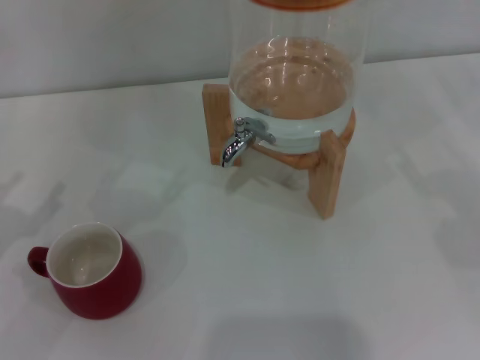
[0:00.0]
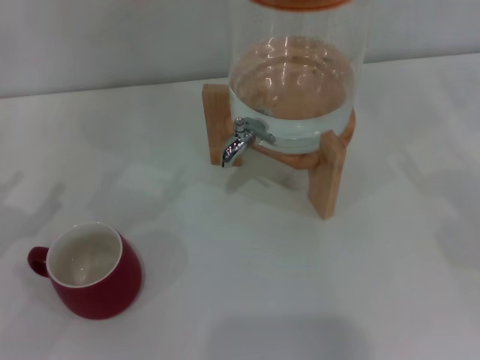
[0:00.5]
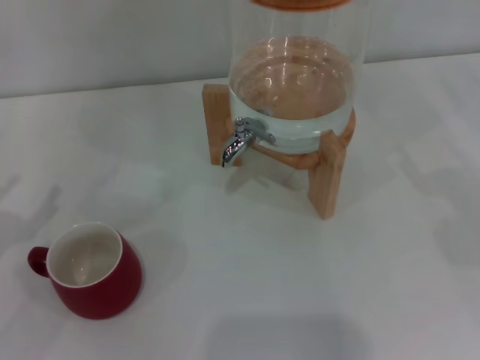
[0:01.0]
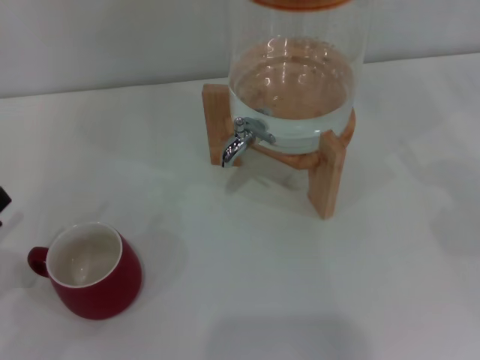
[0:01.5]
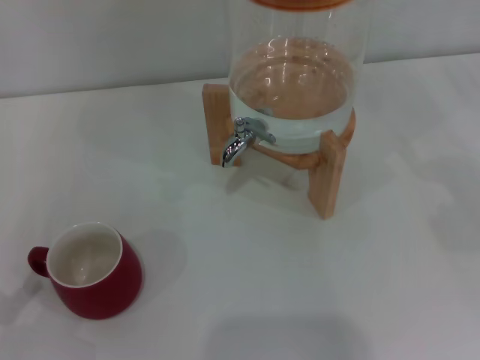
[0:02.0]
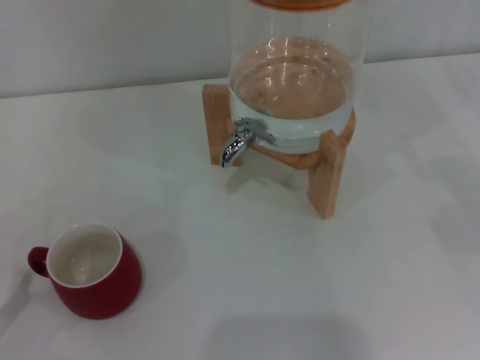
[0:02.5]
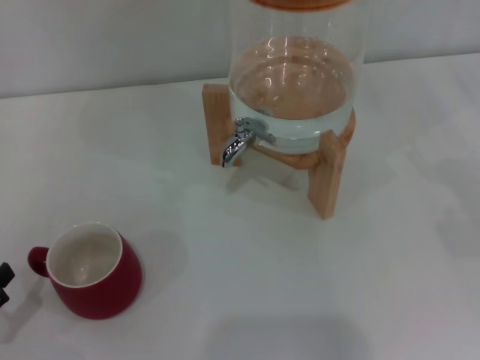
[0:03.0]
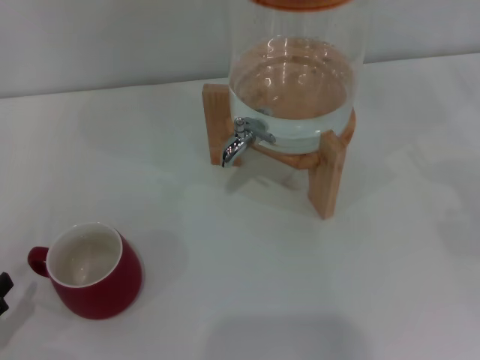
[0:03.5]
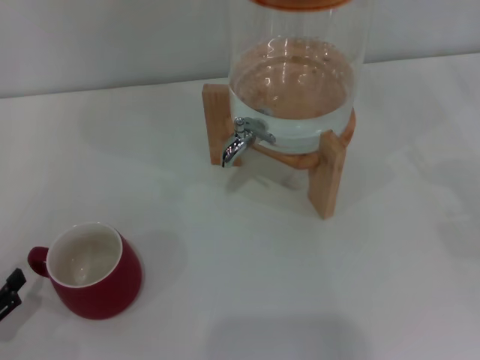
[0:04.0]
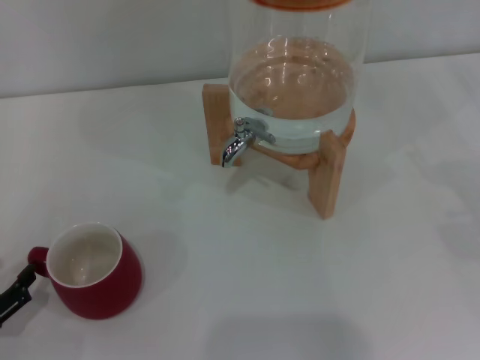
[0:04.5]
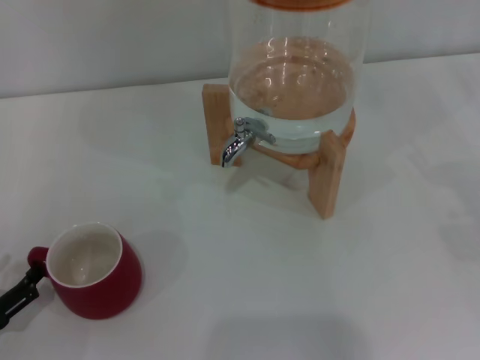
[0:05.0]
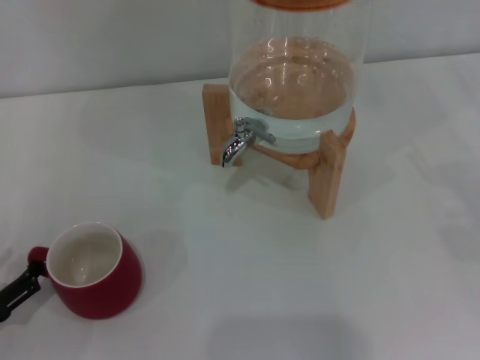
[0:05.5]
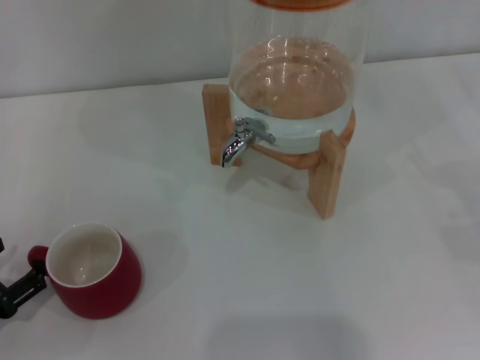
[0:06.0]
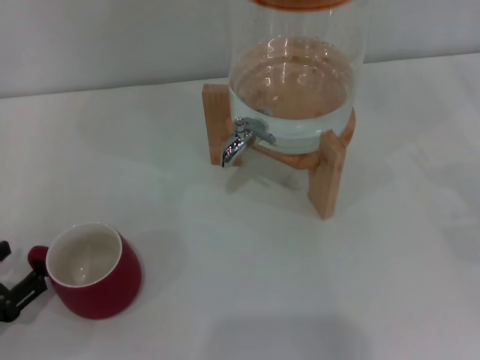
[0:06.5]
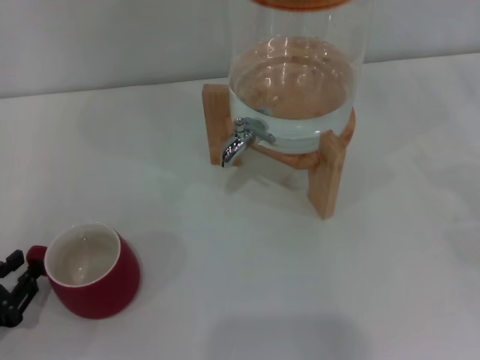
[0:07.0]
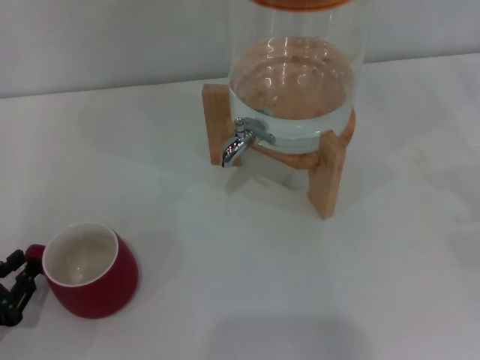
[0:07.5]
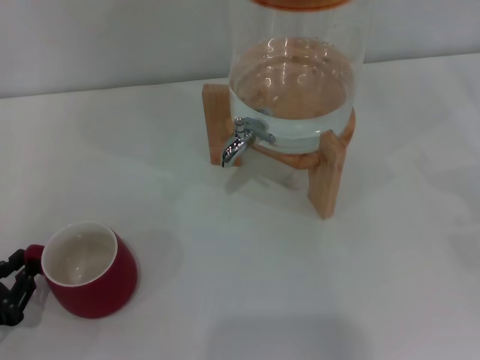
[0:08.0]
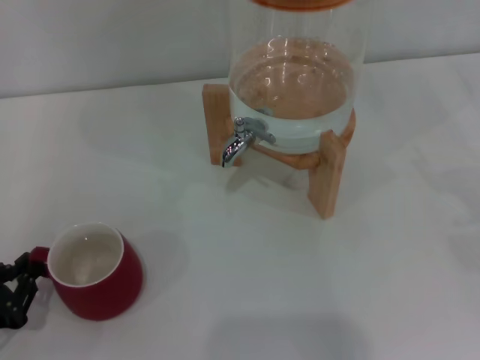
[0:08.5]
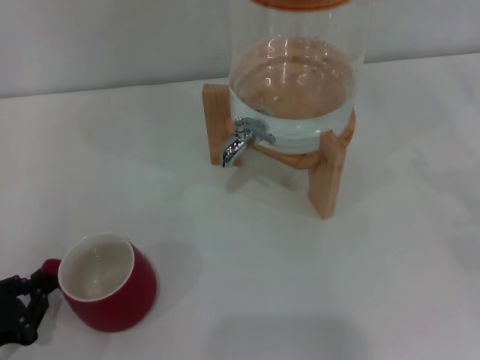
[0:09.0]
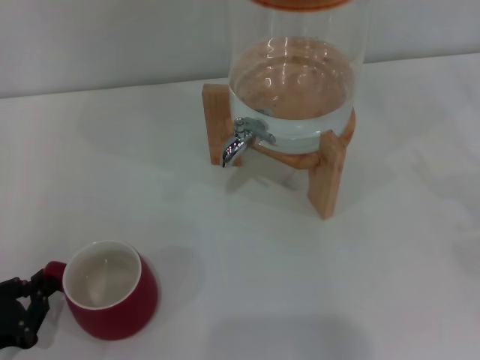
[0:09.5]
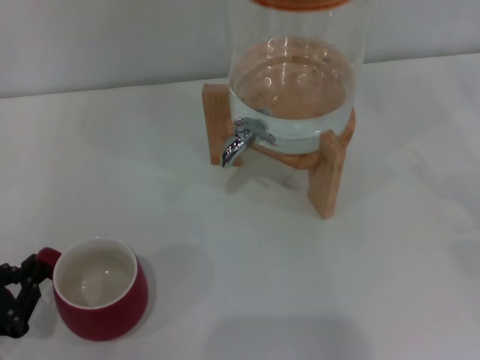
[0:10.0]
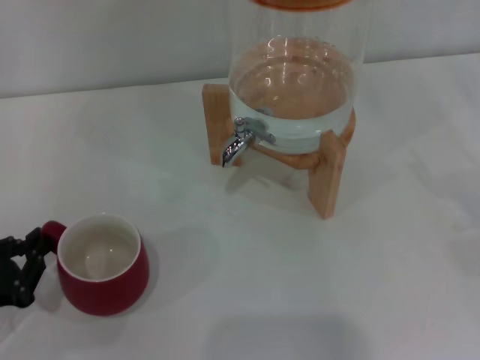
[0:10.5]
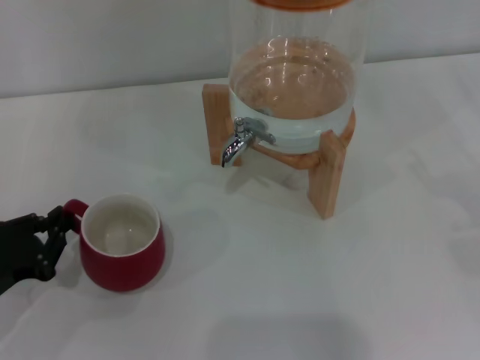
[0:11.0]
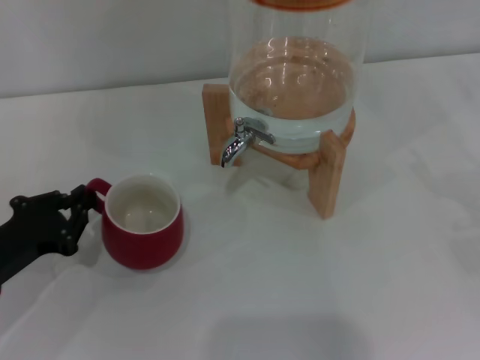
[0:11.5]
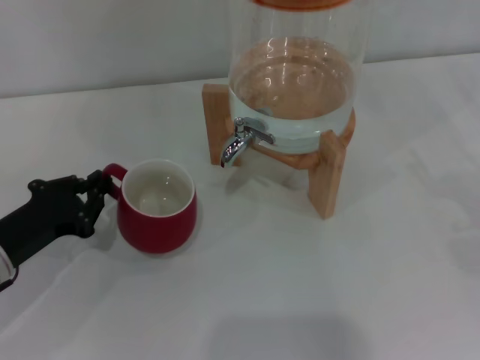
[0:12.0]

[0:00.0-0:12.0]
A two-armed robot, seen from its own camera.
Task of the whole recording: the left gripper pick up the red cup and place it horizontally under the faucet, the right gripper turn on the faucet to fill the cup, and then turn off the faucet.
0:02.0 to 0:04.0: The left gripper is displaced downward by roughly 5 cm.
0:06.0 to 0:08.0: The left gripper closes.
0:08.0 to 0:10.0: The grippers stay close to where they were, moving slightly.
0:10.0 to 0:12.0: The left gripper is displaced forward and to the right by roughly 10 cm.

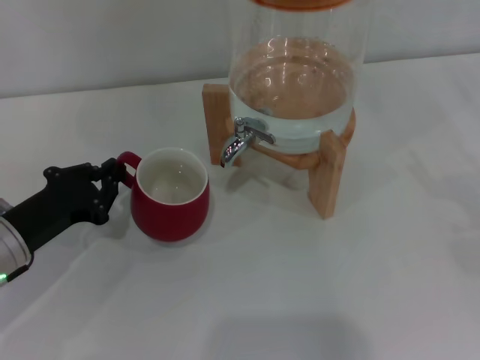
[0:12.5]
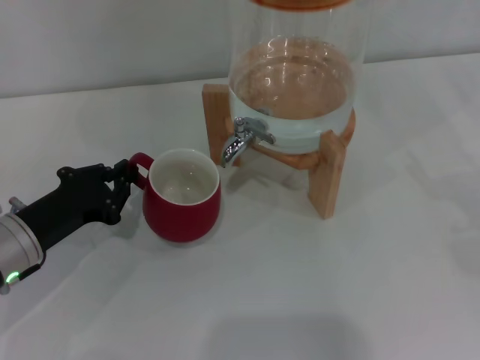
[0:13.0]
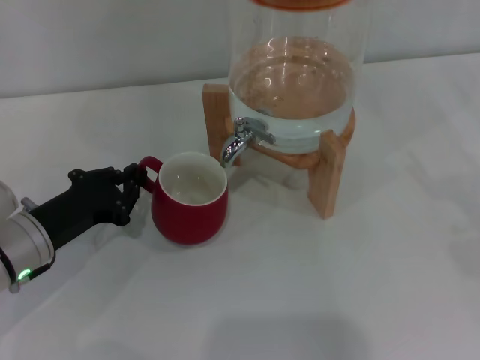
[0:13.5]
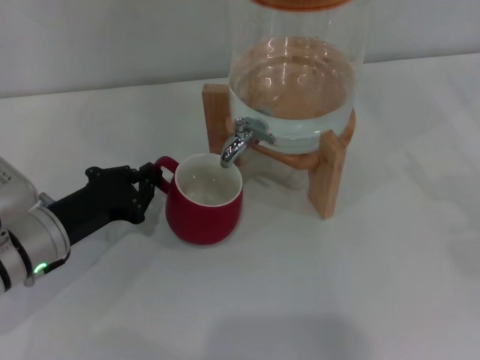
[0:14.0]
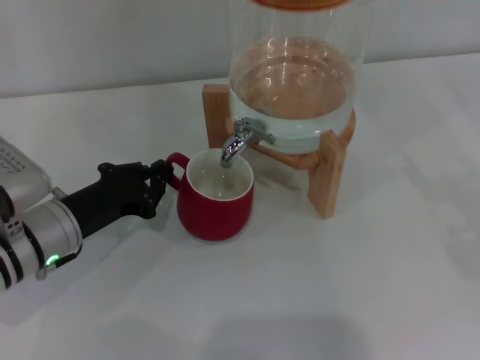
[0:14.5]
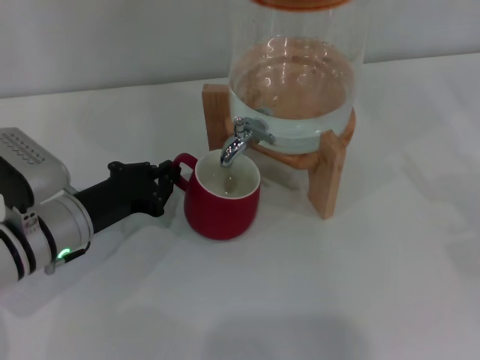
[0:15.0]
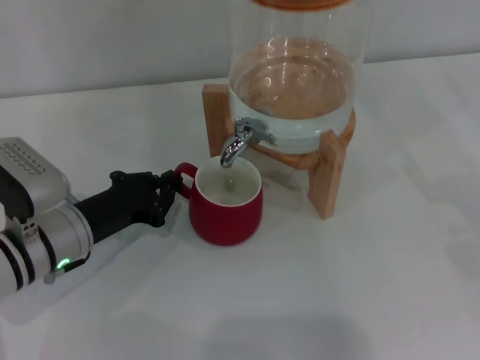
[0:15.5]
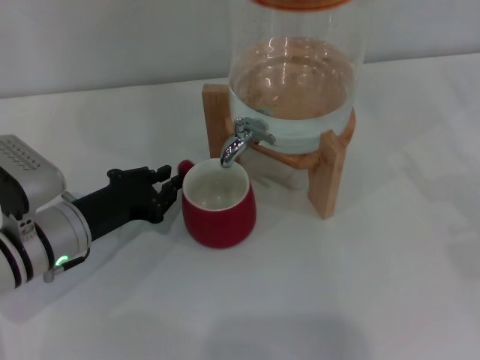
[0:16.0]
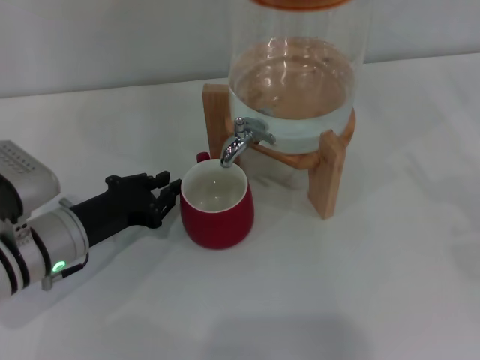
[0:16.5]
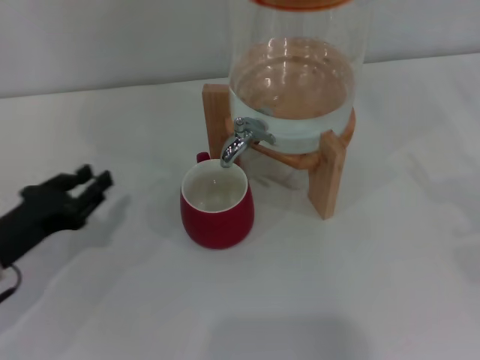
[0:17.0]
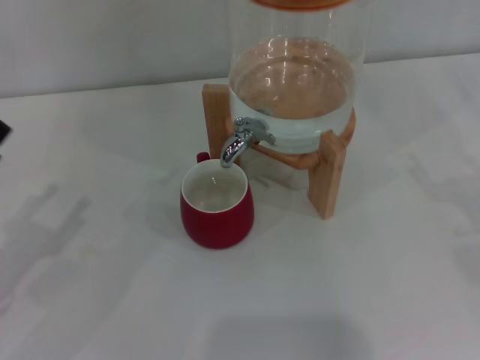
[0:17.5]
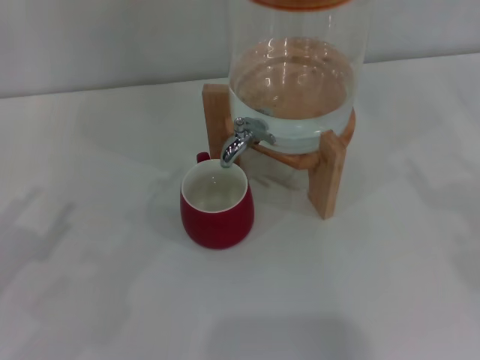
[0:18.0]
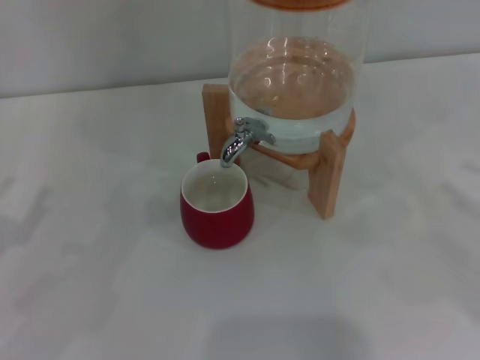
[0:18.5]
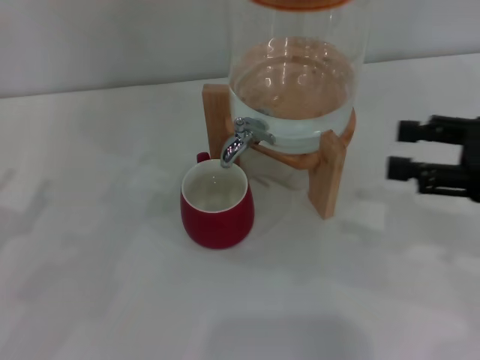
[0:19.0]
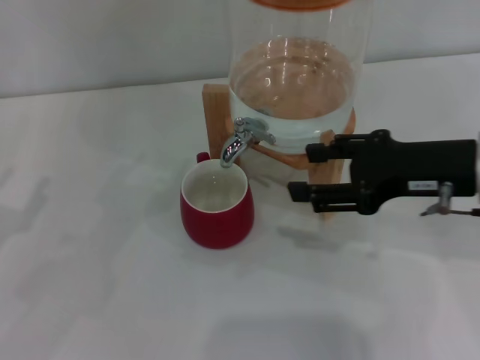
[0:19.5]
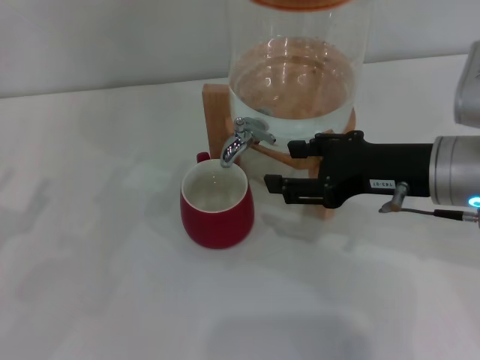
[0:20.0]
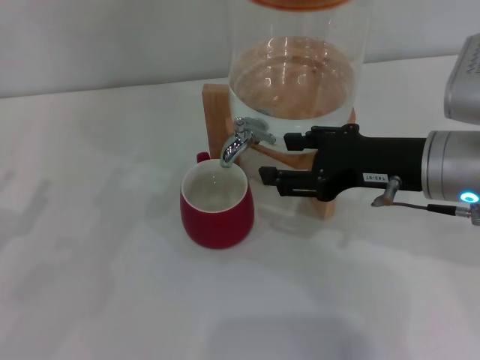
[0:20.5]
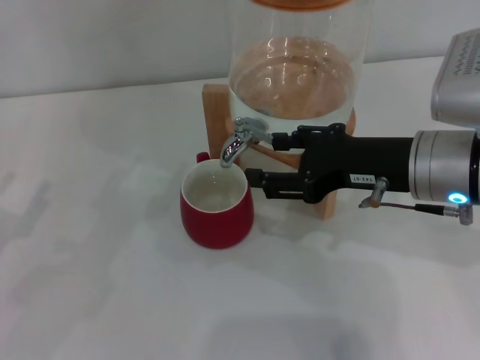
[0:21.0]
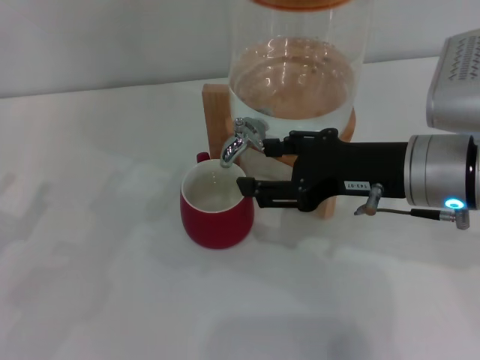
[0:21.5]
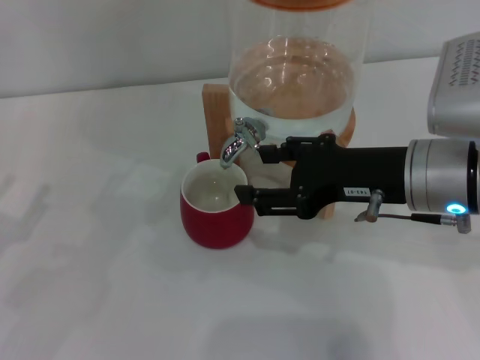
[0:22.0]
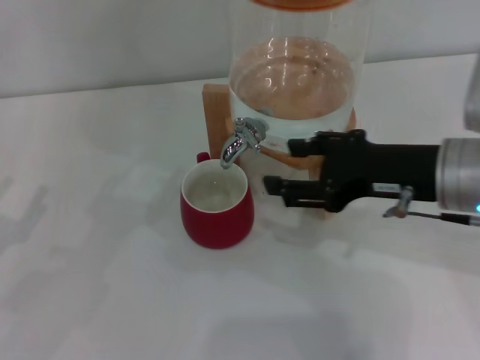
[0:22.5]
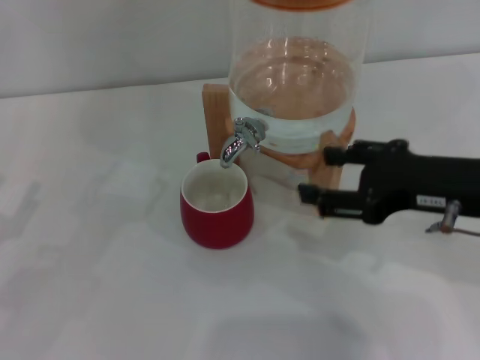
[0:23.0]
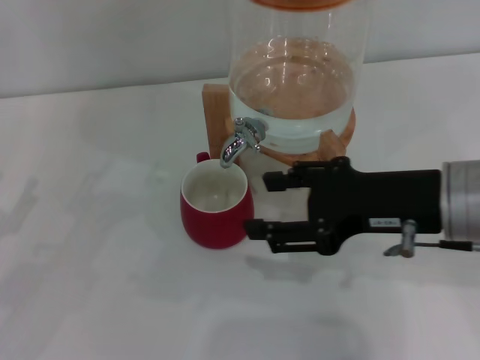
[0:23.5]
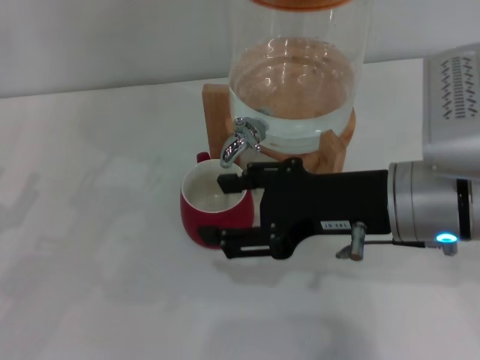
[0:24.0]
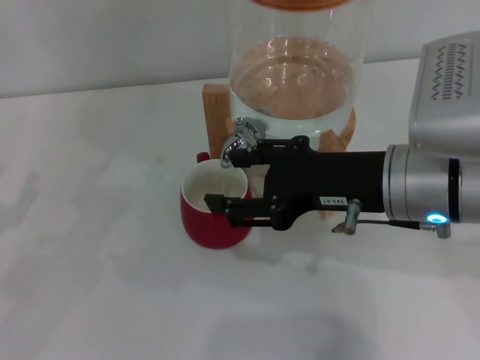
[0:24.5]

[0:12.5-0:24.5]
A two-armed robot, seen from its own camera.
Task of the whole recording: the left gripper pick up the red cup and place it horizontally under the faucet, the right gripper turn on the faucet to fill the cup, and then turn off the faucet.
Step, 0:12.5 to 0:16.5: Move the cup beneath the water dispenser nozzle with the left gripper.
Step, 0:17.0 to 0:24.0: Open the dispenser valve and fill the cup with water with the right gripper.
0:12.5 to 0:14.5: The grippers stay close to where they were, moving slightly.
0:14.5 to 0:16.5: There are only small adjustments of the grippers.
0:16.5 to 0:18.5: The left gripper is displaced to the left, backward and upward by some 20 cm, and opens its fingers. Meanwhile the right gripper moves approximately 5 cm.
0:18.5 to 0:20.5: The right gripper goes some 25 cm to the left and forward.
0:20.5 to 0:24.5: The grippers stay close to where they were, moving slightly.

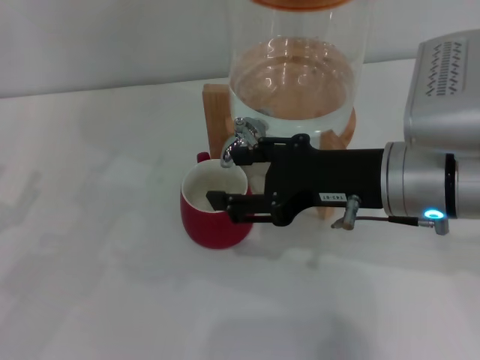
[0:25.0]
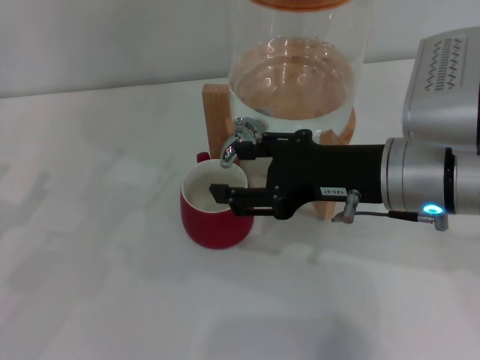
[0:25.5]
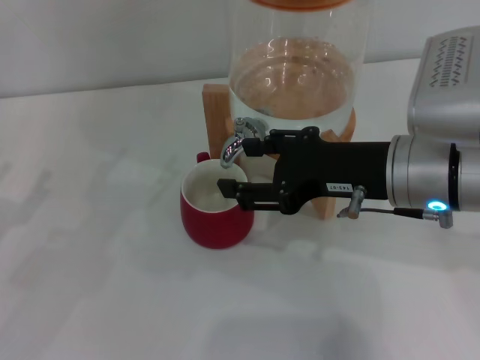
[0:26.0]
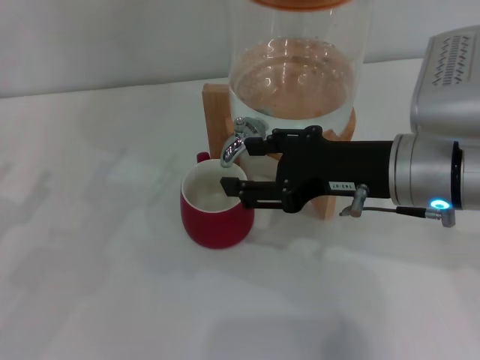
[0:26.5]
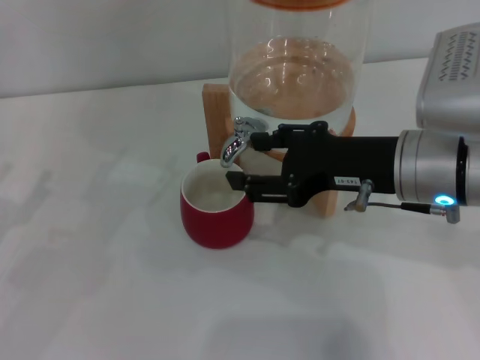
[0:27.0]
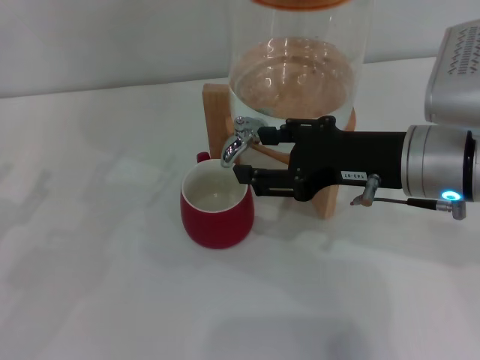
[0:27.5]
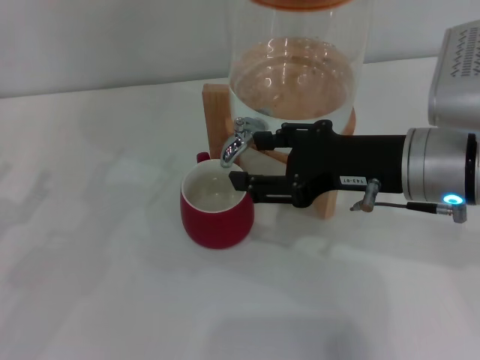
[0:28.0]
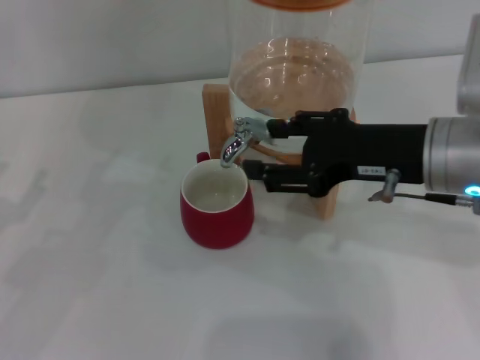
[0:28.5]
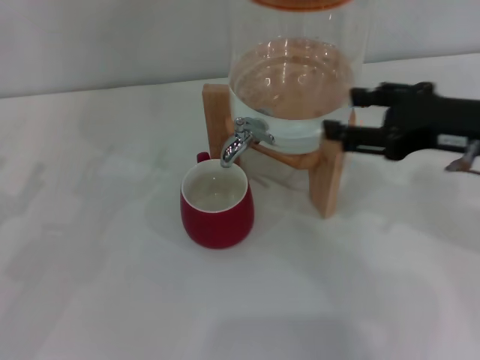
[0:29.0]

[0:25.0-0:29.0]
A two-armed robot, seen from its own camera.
Task of the whole recording: the left gripper pick up the red cup and place it horizontally under the faucet, the right gripper turn on the faucet to fill the cup, and then turn off the faucet.
Step, 0:25.0 to 0:28.5: Close the dispenser valve with the right gripper.
0:25.0 to 0:27.0: The grippers stay close to where they were, moving slightly.
0:27.0 to 0:29.0: The right gripper is displaced to the right by approximately 10 cm.
